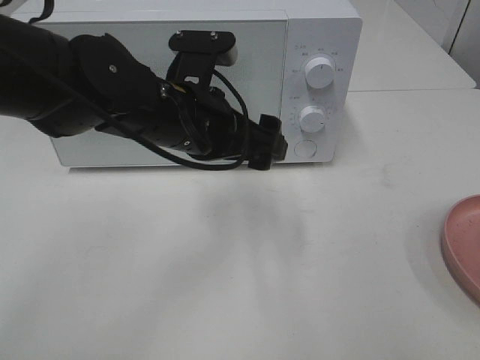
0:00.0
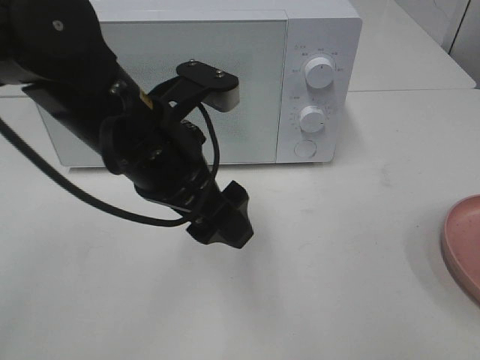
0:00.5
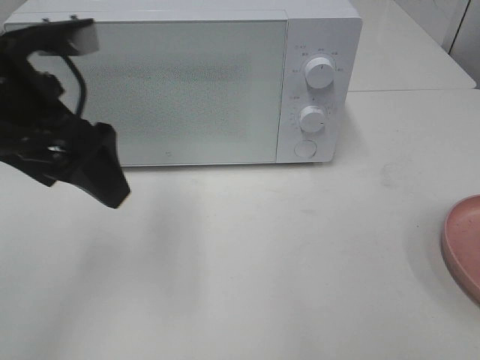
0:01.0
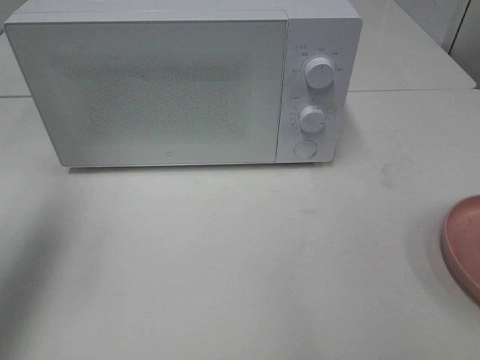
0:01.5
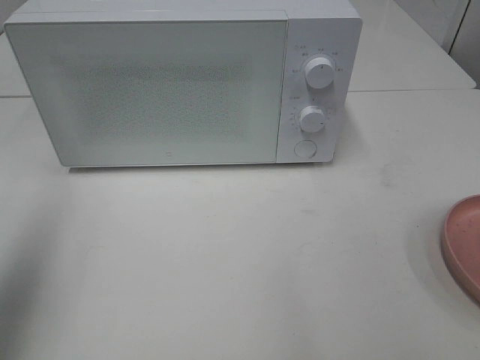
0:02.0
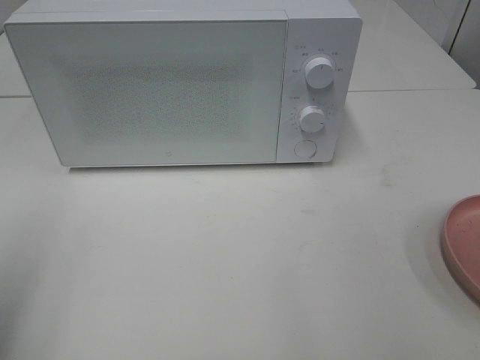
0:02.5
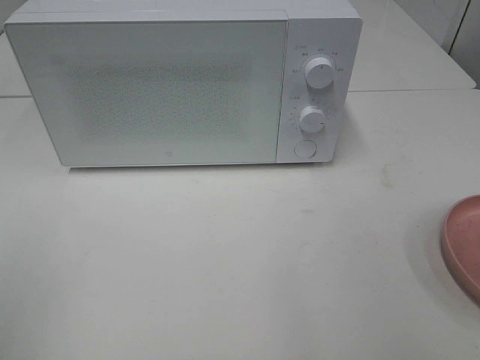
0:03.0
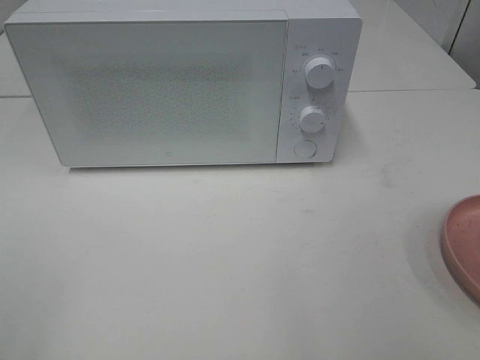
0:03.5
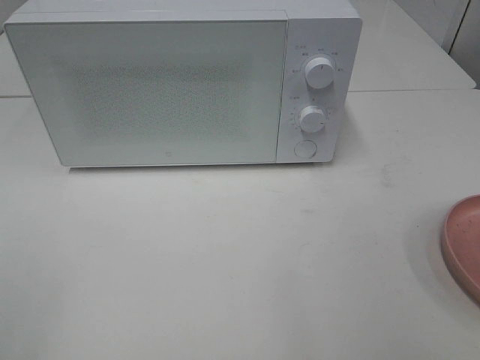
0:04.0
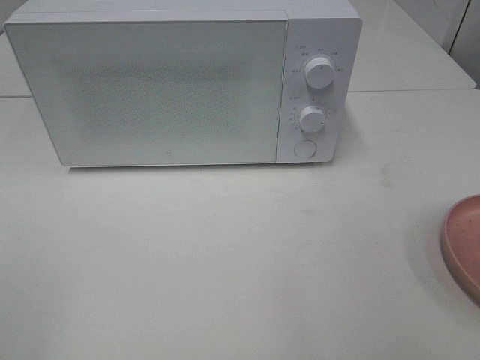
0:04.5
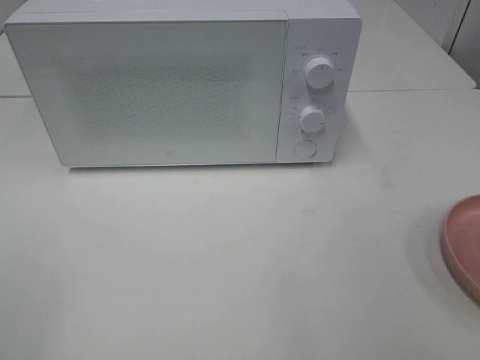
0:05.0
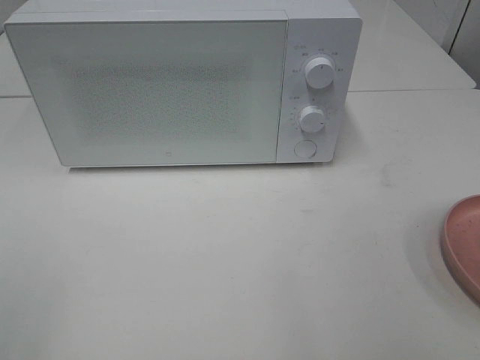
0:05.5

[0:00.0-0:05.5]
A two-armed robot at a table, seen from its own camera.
Task of the whole recording: Heat the burger.
0:00.0 to 0:02.0: The left gripper heads to the left, upward and backward, covering roughly 35 cm.
0:02.0 to 0:03.5: The left gripper shifts some 20 cm backward and downward.
0:03.5 to 0:05.5: Both grippers stay about where they are.

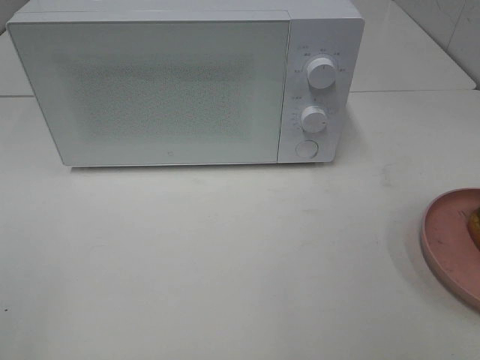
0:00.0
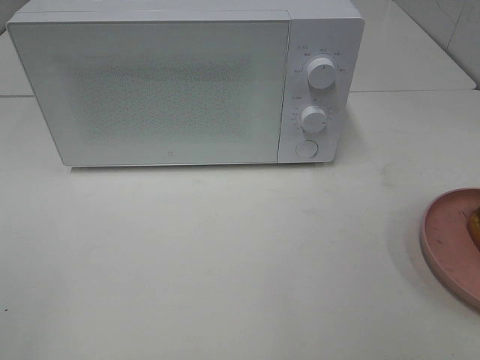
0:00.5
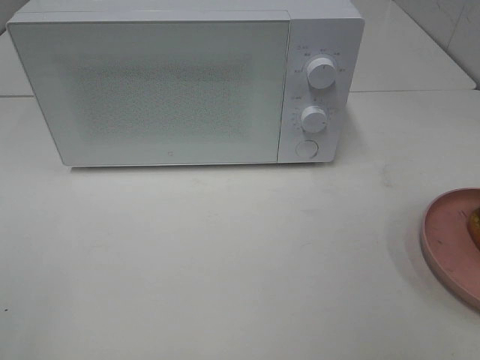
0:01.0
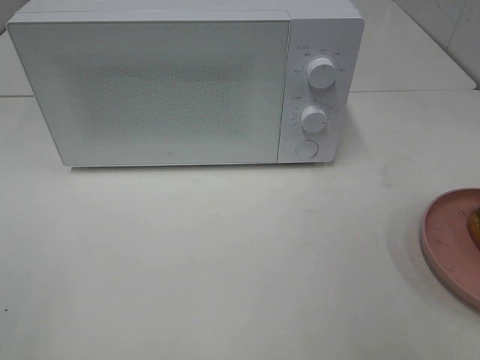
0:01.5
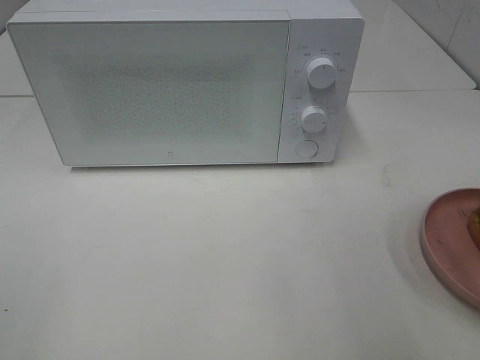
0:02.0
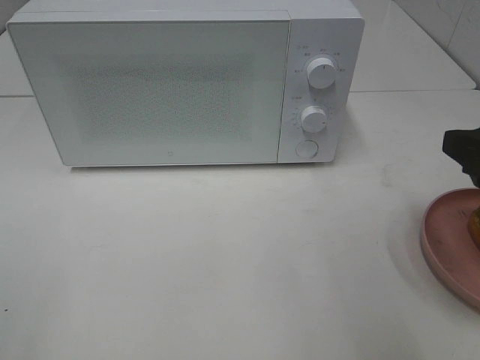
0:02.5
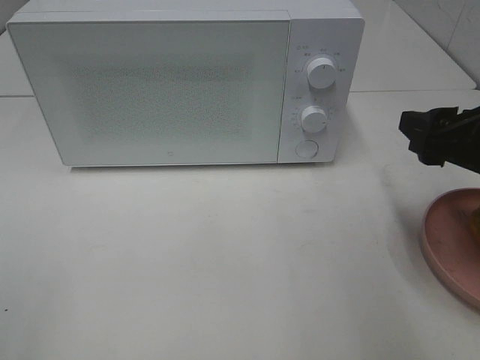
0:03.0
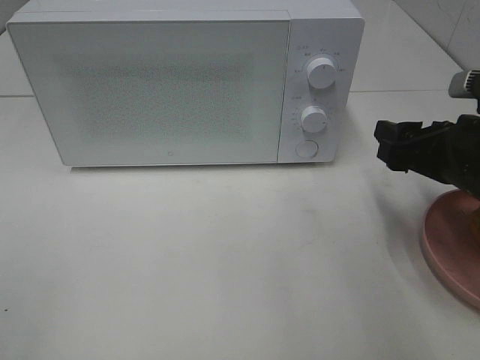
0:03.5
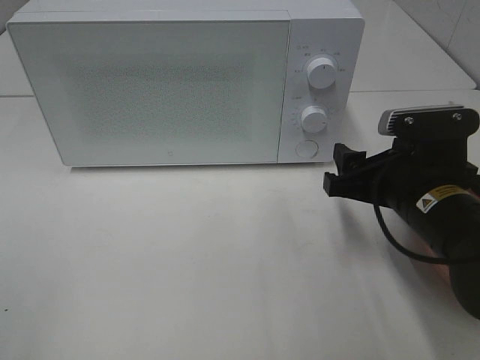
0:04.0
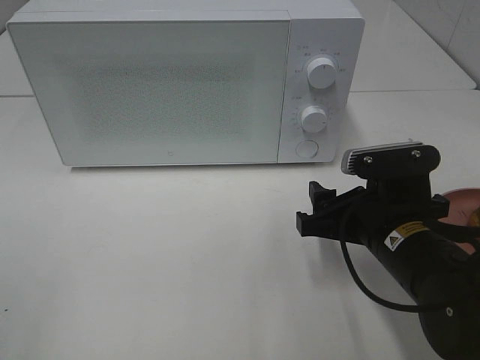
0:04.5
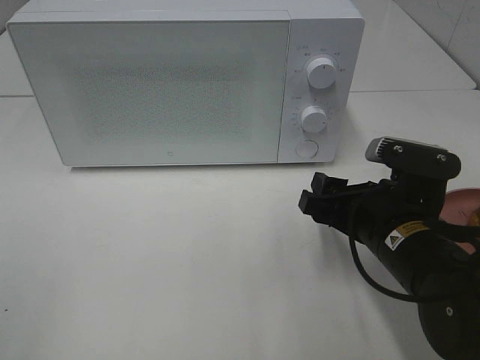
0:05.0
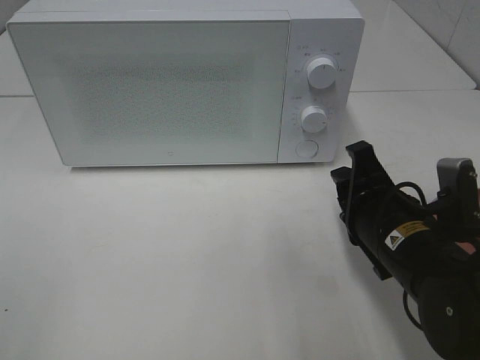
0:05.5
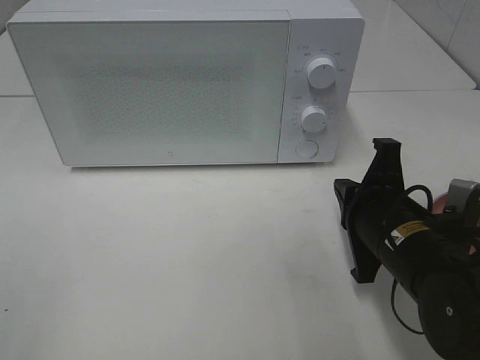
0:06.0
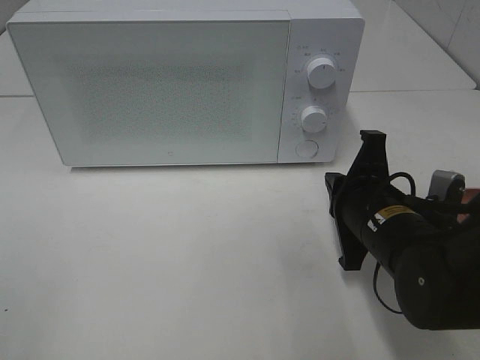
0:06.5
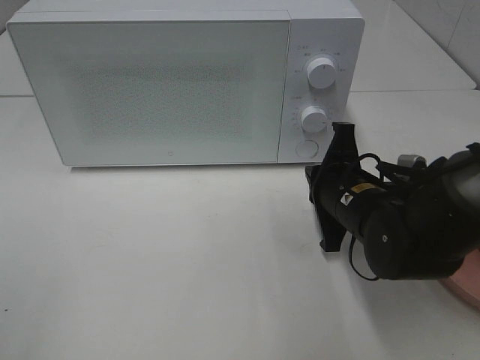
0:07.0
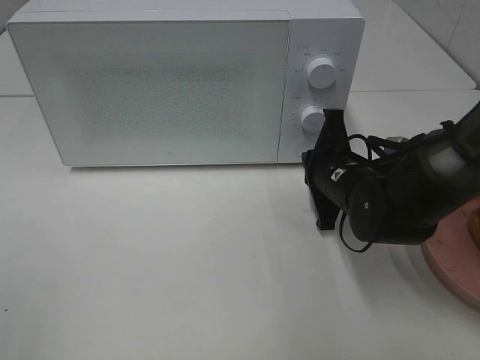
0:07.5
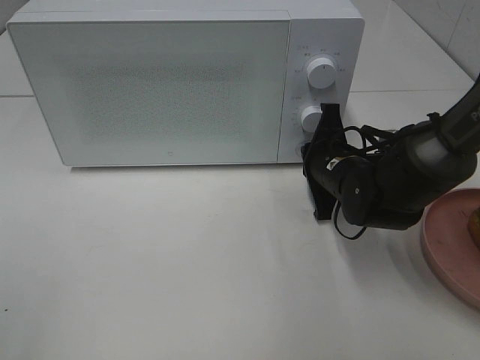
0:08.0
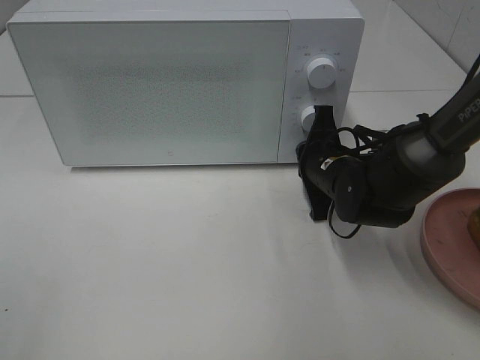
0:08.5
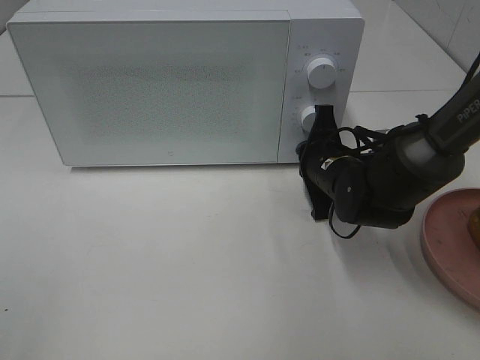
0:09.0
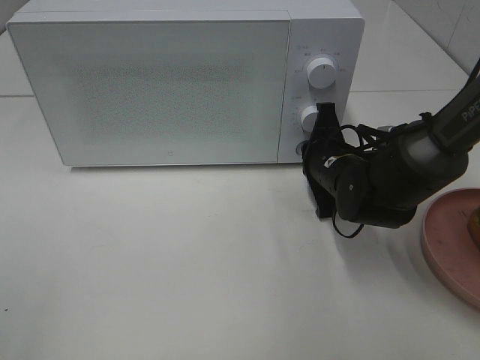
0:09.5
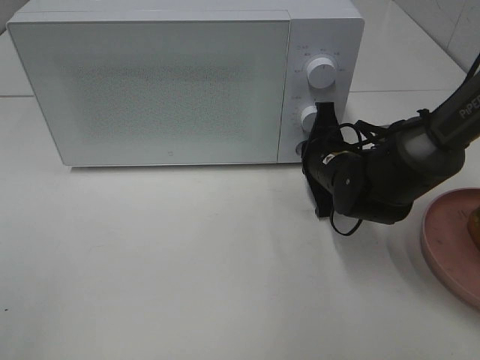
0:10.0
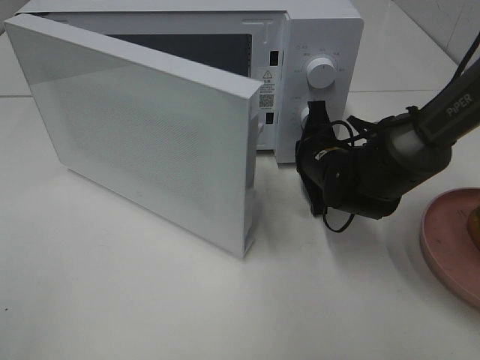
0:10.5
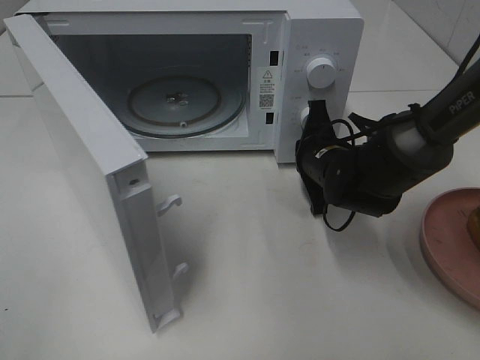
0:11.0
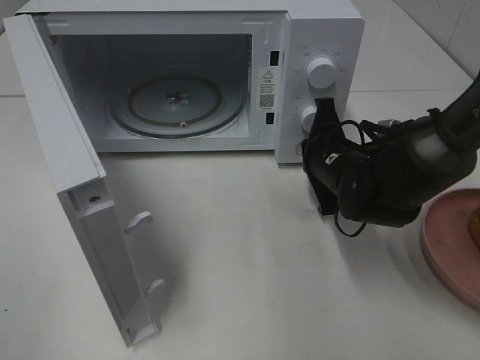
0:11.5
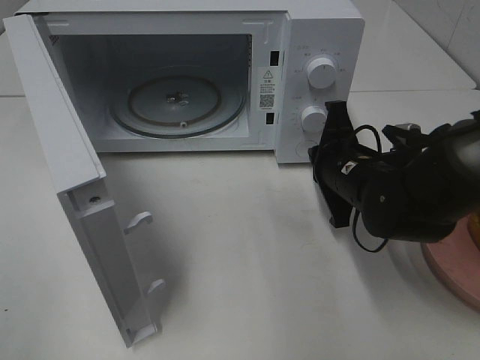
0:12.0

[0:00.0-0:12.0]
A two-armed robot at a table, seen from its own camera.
Task of the whole recording: Heat the burger.
Step, 0:00.0 to 0:12.0: Right hand: press the switch.
0:02.0 to 0:04.0: The right gripper shifts about 20 cm downward, forward and to the left.
0:04.0 to 0:06.0: The right gripper closes up.
0:06.0 to 0:08.0: The right gripper travels forward by approximately 15 cm.
0:08.0 to 0:10.0: Both grippers stay about where they are.
0:10.0 to 0:12.0: The right gripper ends up roughly 5 cm from where it was.

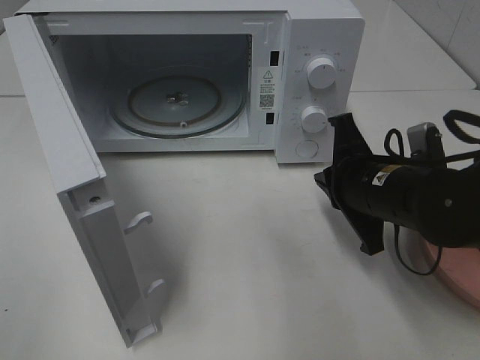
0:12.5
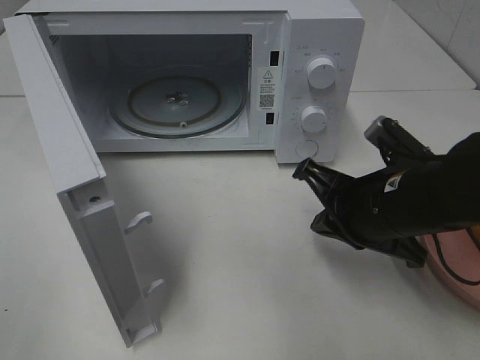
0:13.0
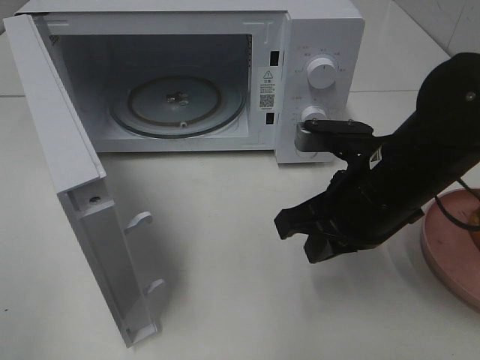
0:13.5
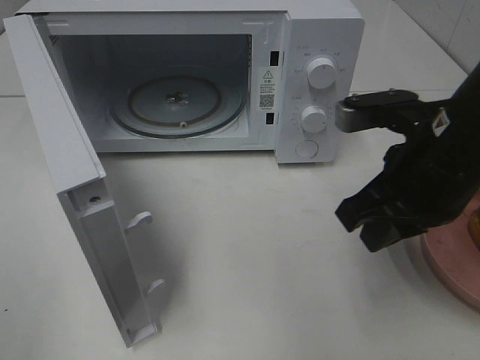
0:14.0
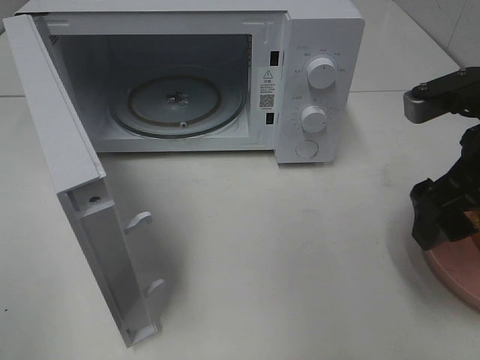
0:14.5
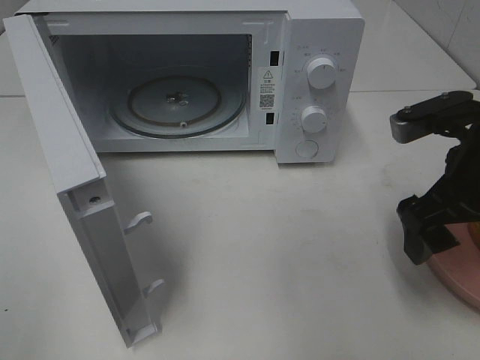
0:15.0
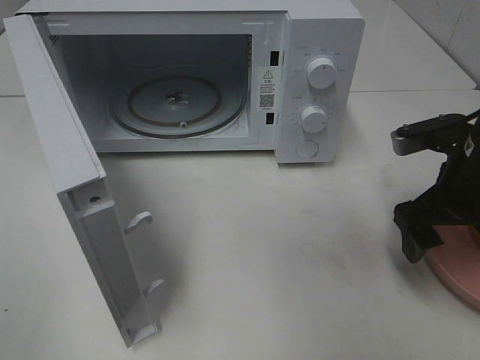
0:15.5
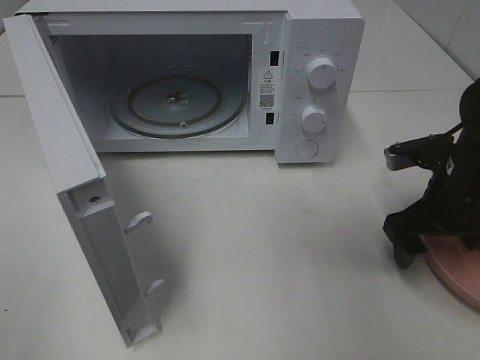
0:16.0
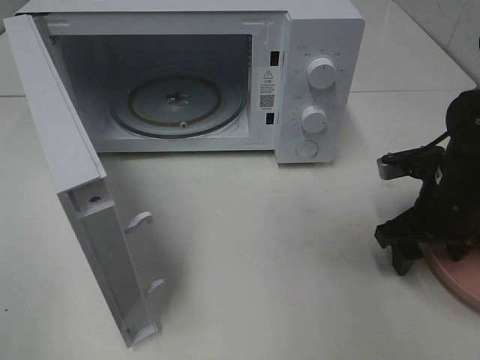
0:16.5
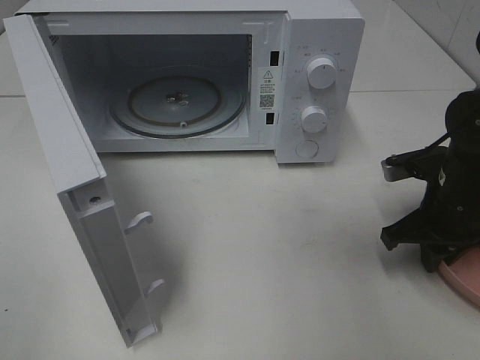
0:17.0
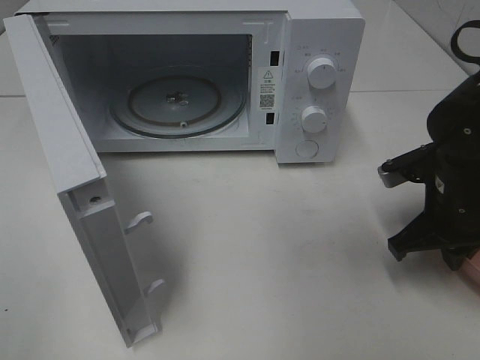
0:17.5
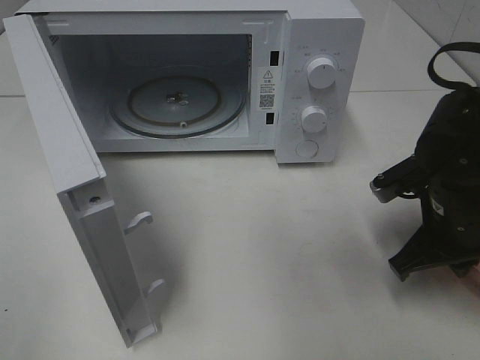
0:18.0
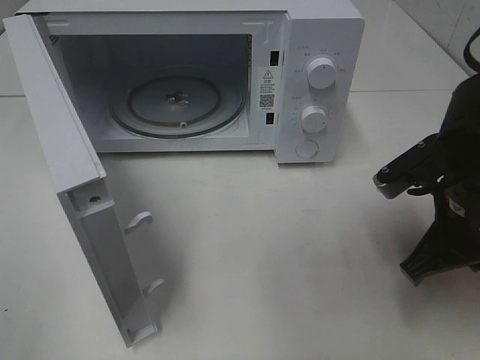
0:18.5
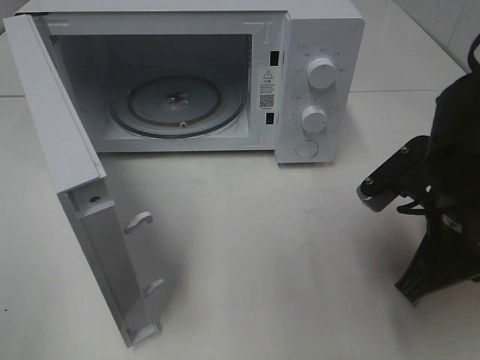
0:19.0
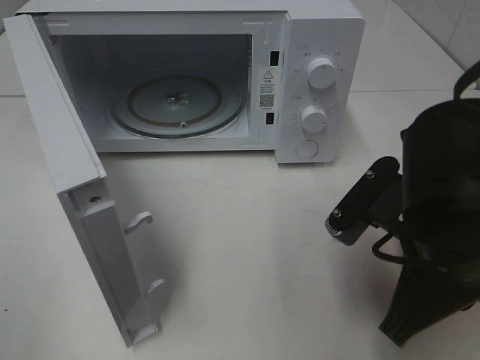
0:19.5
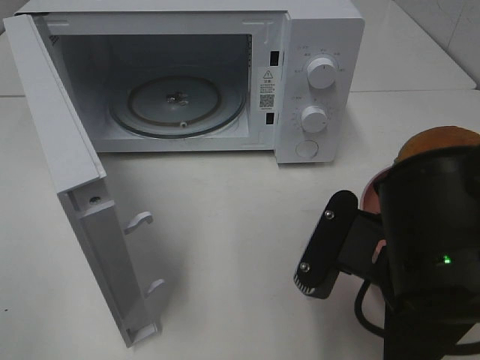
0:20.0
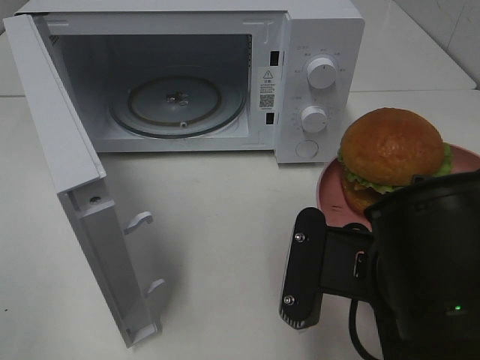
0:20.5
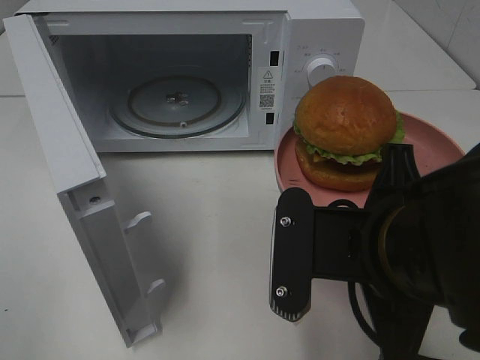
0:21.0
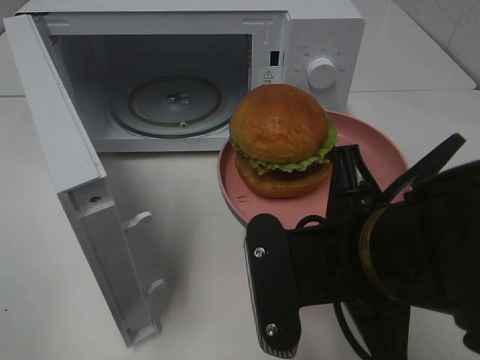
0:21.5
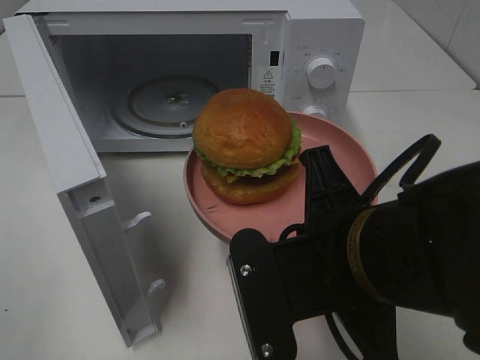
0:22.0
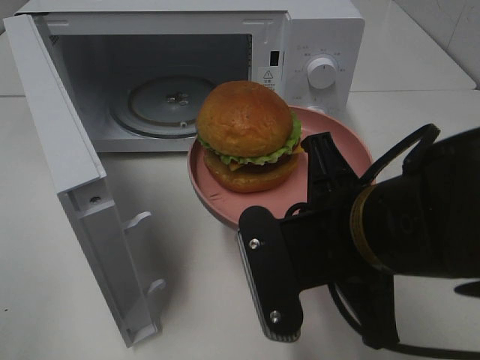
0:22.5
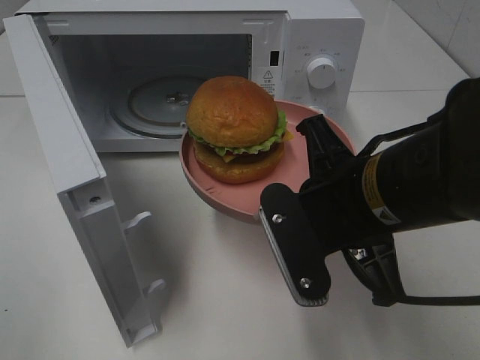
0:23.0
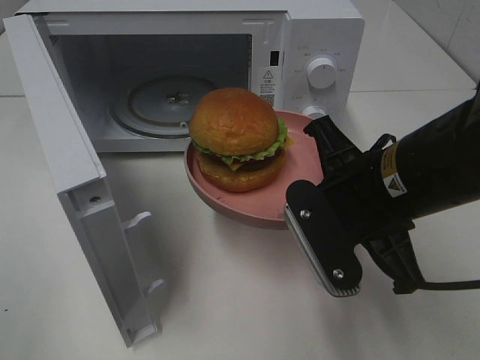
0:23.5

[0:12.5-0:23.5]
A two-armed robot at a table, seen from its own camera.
Task of the whole recording: Heat the burger.
Step, 0:12.5 to 0:17.0: Right hand: grab the plate with the hamburger.
0:12.5 to 0:14.5: The right gripper shifts approximately 10 cm upward and to the right, and opens its fingers.
0:14.5 to 0:16.0: The right gripper travels downward and forward by approximately 15 cm.
0:16.0 to 0:18.0: The right gripper closes up.
0:18.0 to 0:20.0: The right gripper travels backward, to the left and upward by some 15 cm.
0:21.5 to 0:23.5: The right gripper travels forward by some 5 cm.
